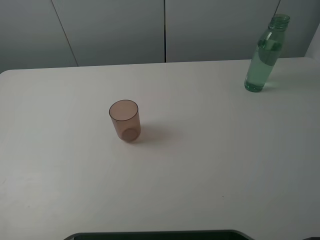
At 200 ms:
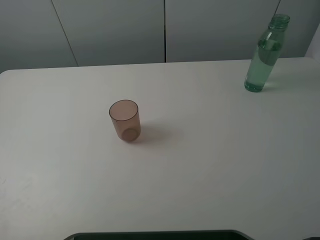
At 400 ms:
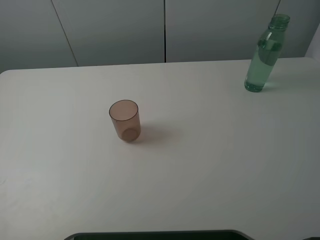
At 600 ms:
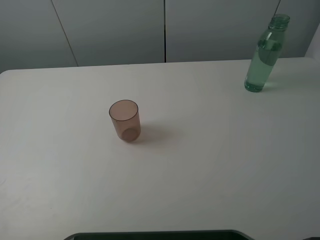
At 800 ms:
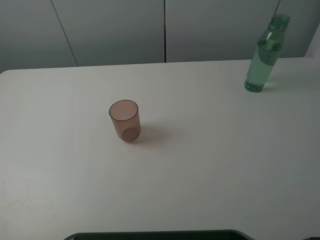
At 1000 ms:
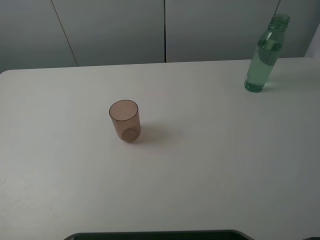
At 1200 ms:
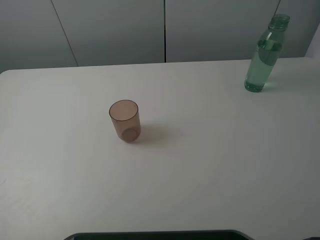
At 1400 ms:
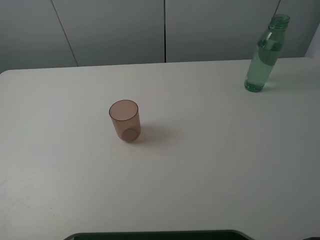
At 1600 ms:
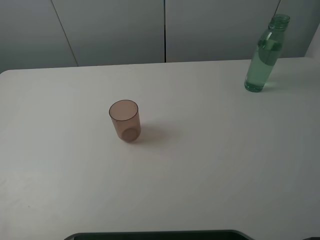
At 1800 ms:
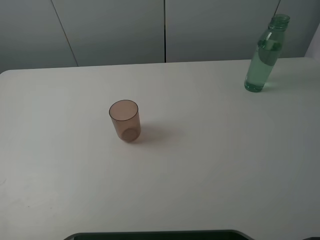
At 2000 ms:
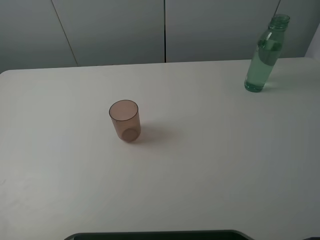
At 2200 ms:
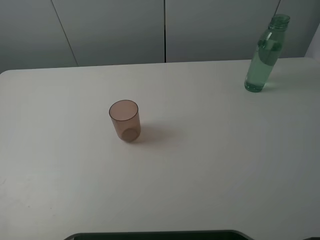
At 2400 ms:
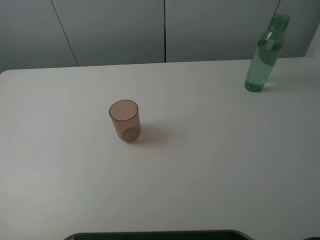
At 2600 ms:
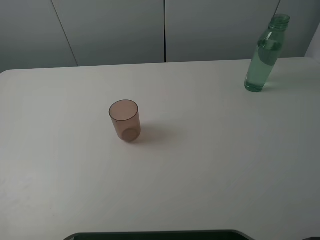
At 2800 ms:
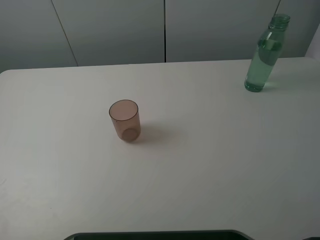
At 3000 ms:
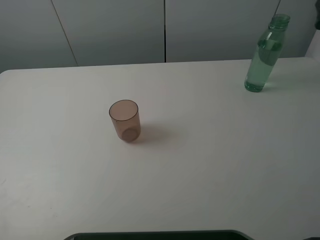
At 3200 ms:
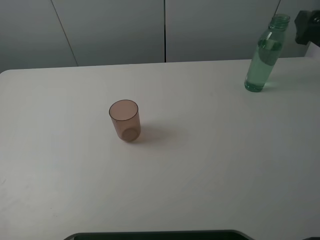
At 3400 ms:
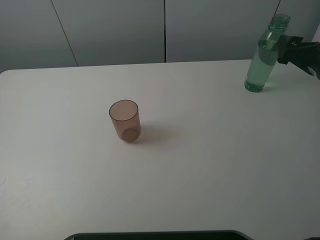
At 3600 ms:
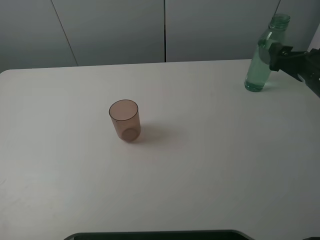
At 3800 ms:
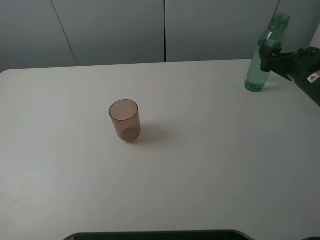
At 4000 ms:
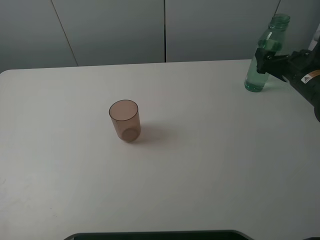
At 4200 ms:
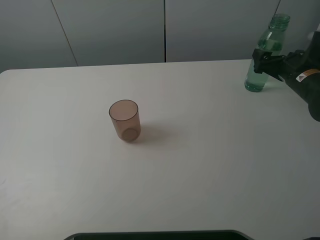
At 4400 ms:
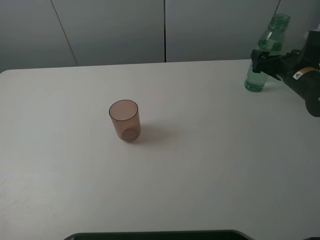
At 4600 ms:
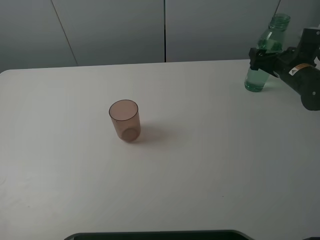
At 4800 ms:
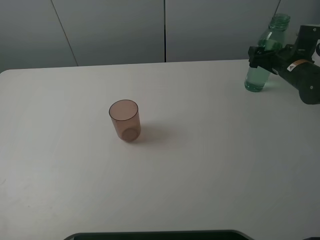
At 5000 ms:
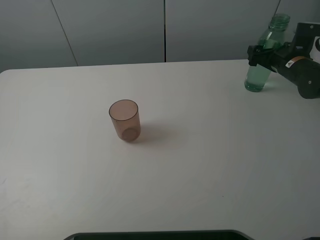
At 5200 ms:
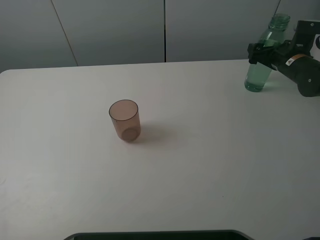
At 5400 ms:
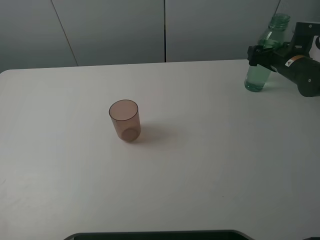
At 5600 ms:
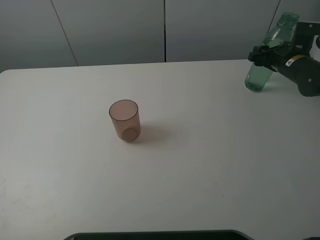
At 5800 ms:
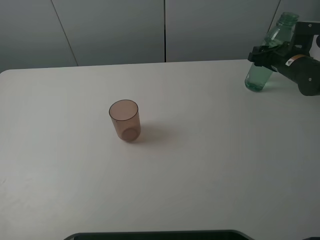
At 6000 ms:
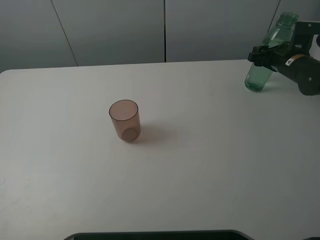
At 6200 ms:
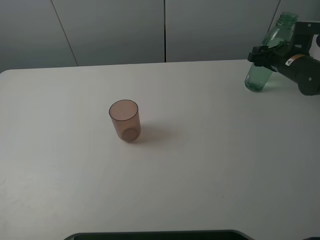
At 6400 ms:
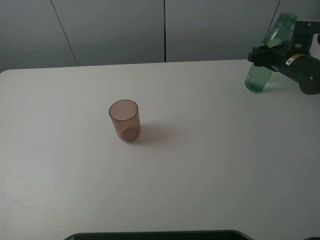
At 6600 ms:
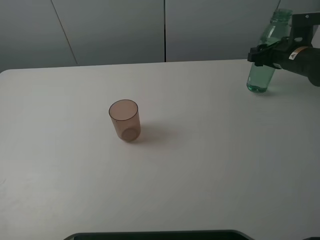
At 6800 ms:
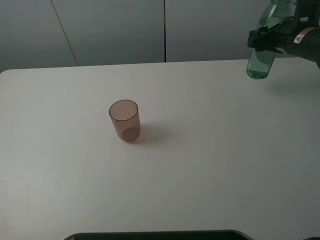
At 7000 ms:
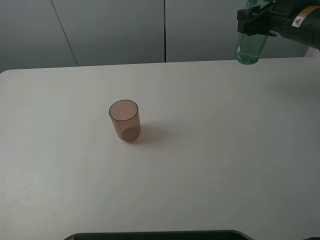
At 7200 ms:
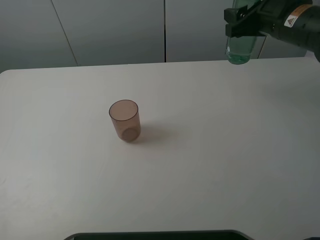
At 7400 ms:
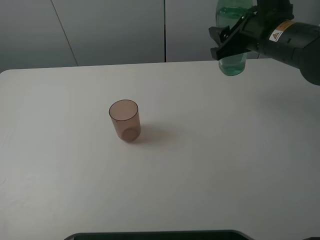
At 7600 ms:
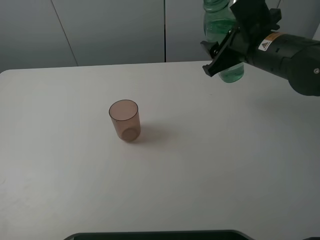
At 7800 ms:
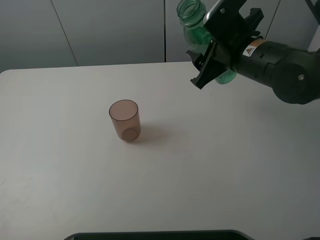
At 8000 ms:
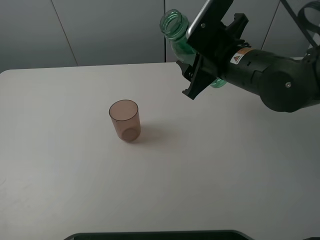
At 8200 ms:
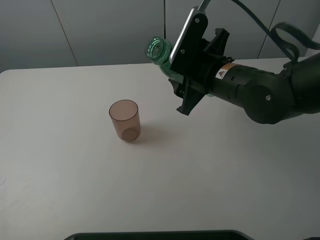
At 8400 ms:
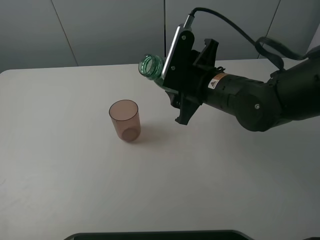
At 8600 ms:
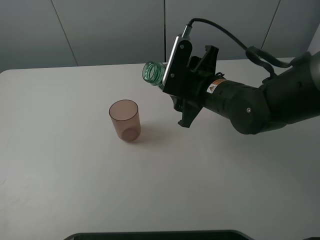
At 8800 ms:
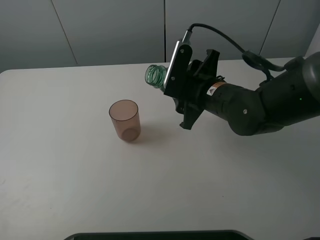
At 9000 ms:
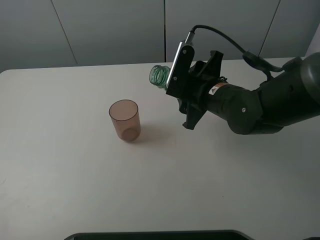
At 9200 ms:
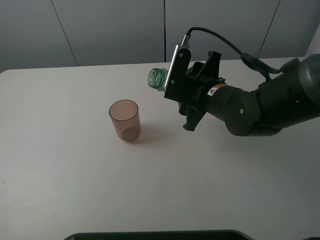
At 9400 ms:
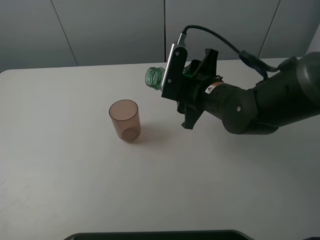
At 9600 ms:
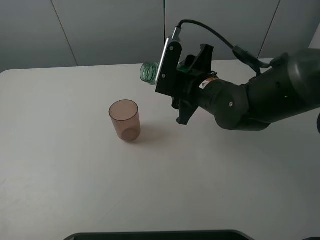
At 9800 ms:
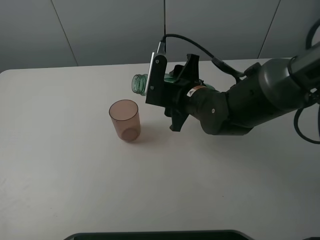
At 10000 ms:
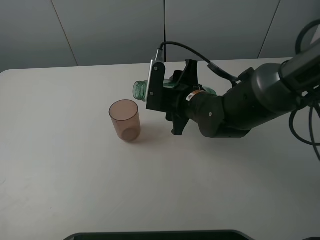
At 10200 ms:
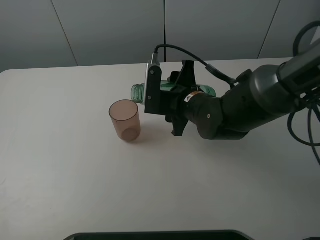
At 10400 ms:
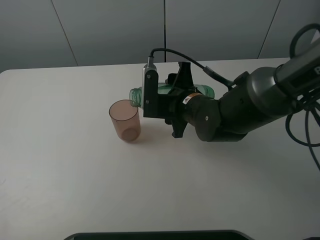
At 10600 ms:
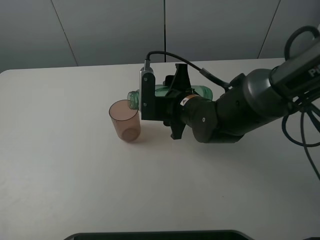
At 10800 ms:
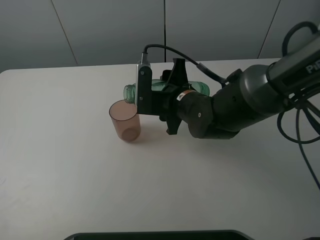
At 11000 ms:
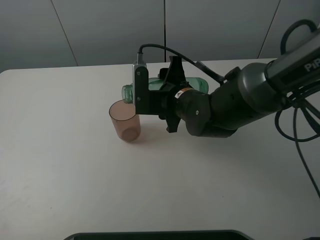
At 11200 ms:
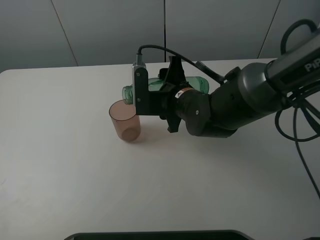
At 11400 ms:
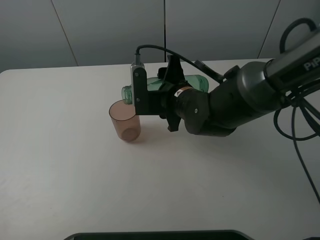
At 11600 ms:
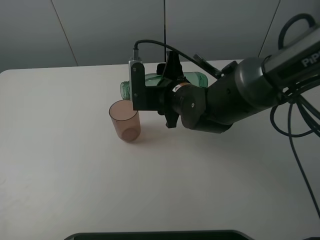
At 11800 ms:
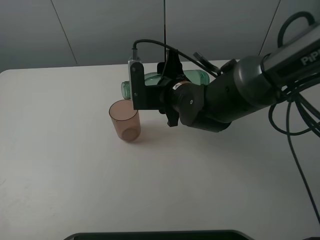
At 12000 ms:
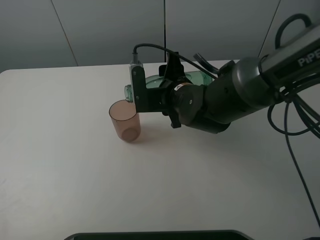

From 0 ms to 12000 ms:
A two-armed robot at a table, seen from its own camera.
Task of the whole recording: pick up the bottle filled with water and pour it into the pink cup.
Step, from 0 ms to 6000 ms: Grasp the green bottle with the right gripper.
From 0 ms to 1600 ms: Both grippers stay put.
From 3000 ms to 4400 ms: The right gripper moves downward and forward, some 15 cm.
From 4400 ms to 6000 ms: The right gripper closes.
From 6000 ms to 7600 ms: The right gripper moves to the left, backward and upward, about 20 cm.
From 7600 ms to 9000 ms: The right gripper goes roughly 10 cm downward and to the left.
From 9000 ms to 10400 ms: There are only small adjustments of the grippers.
From 10400 ms to 12000 ms: There are only small adjustments of the grippers.

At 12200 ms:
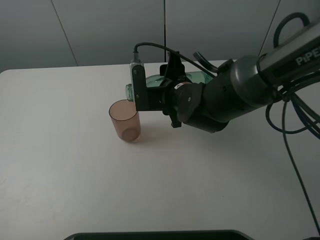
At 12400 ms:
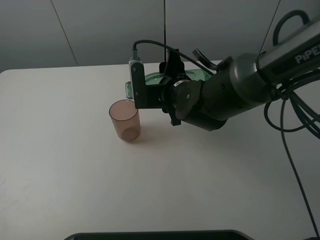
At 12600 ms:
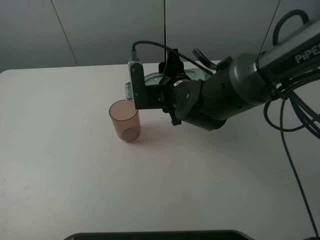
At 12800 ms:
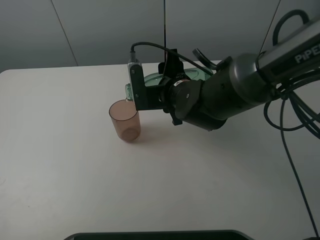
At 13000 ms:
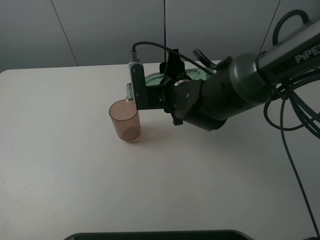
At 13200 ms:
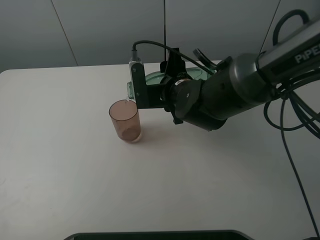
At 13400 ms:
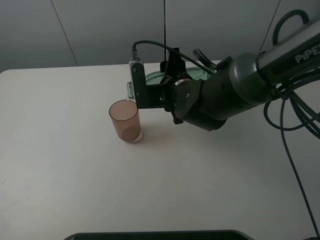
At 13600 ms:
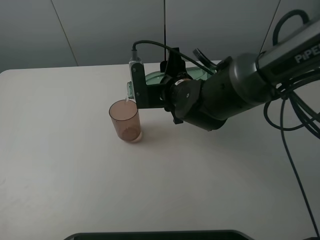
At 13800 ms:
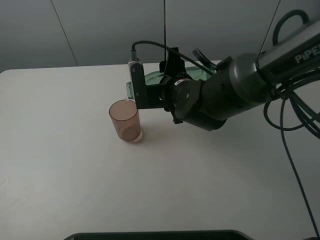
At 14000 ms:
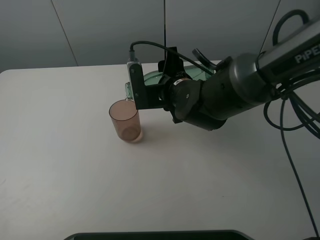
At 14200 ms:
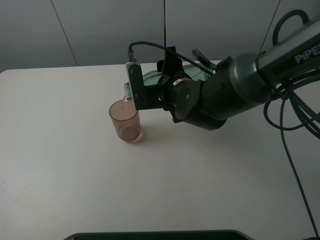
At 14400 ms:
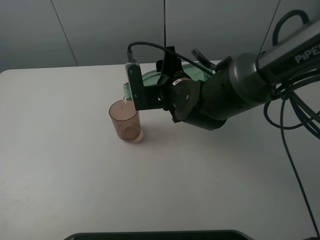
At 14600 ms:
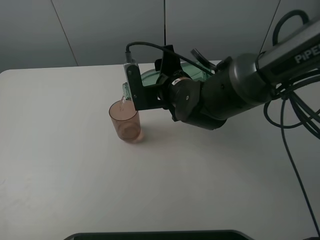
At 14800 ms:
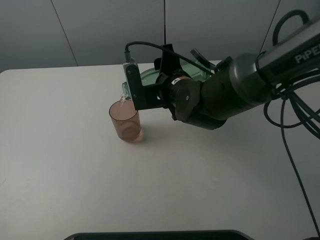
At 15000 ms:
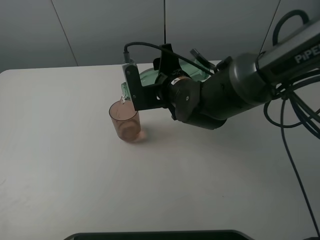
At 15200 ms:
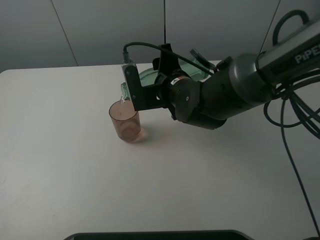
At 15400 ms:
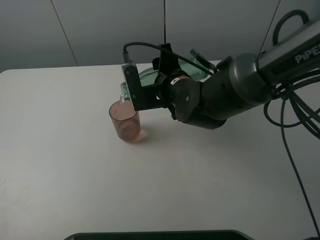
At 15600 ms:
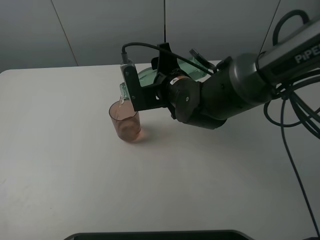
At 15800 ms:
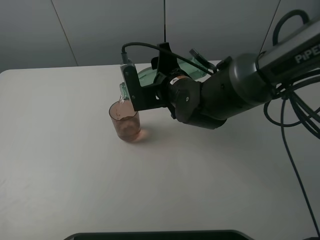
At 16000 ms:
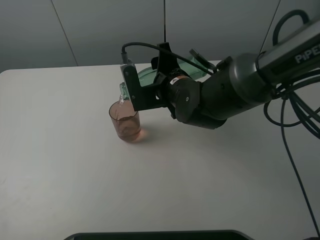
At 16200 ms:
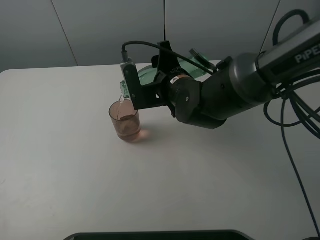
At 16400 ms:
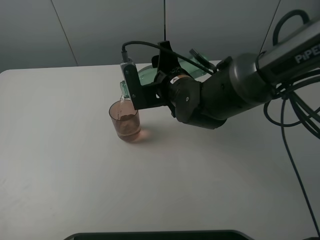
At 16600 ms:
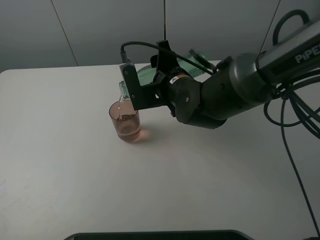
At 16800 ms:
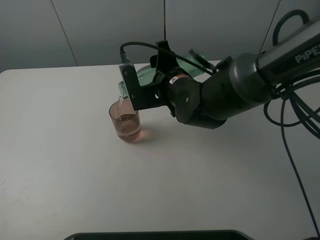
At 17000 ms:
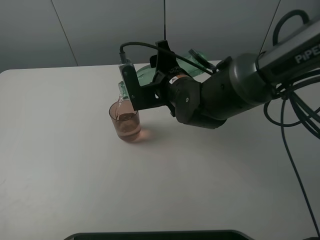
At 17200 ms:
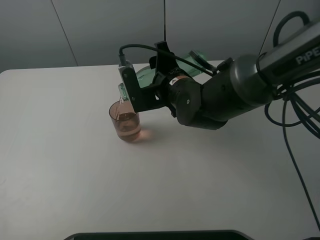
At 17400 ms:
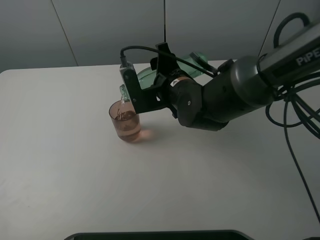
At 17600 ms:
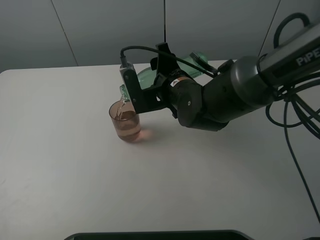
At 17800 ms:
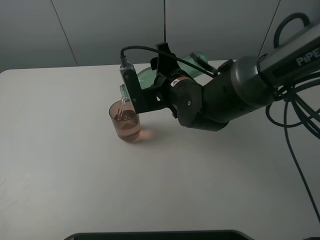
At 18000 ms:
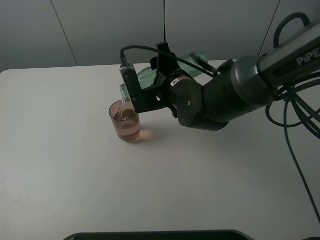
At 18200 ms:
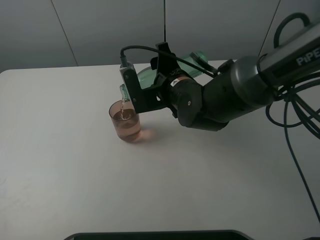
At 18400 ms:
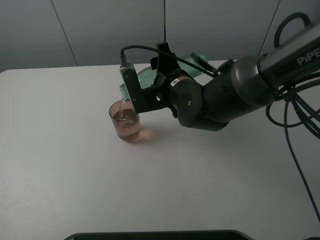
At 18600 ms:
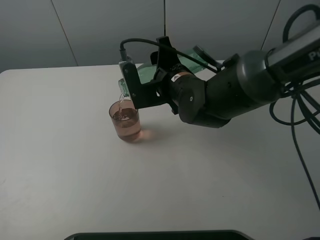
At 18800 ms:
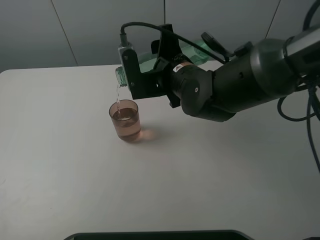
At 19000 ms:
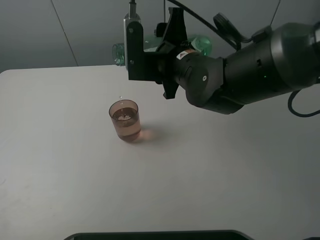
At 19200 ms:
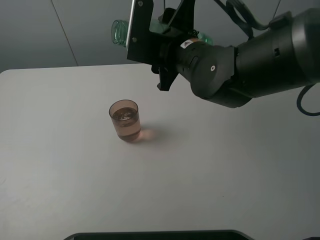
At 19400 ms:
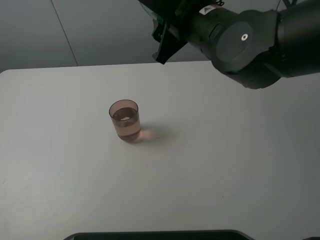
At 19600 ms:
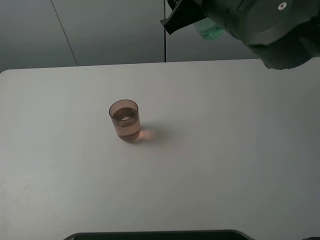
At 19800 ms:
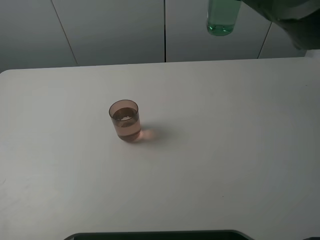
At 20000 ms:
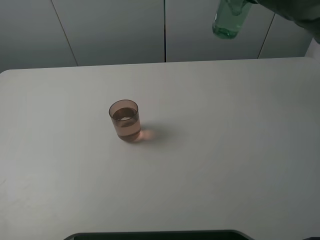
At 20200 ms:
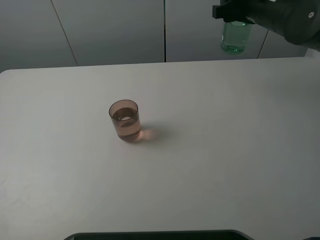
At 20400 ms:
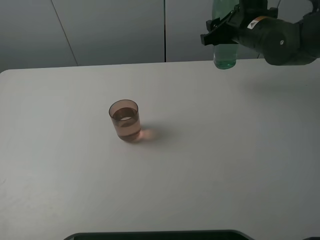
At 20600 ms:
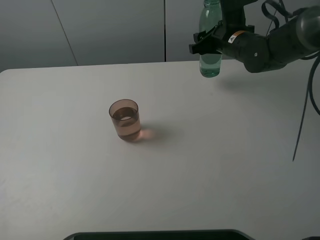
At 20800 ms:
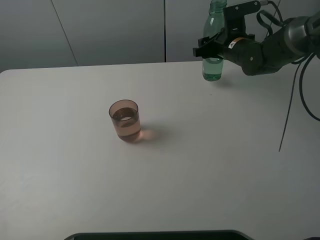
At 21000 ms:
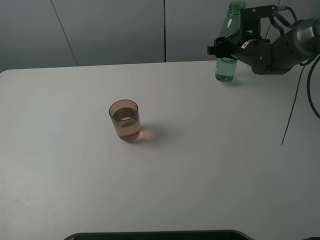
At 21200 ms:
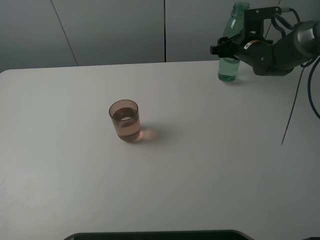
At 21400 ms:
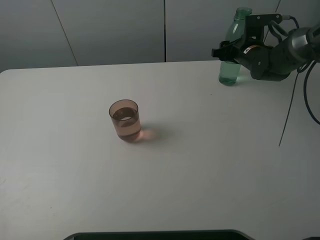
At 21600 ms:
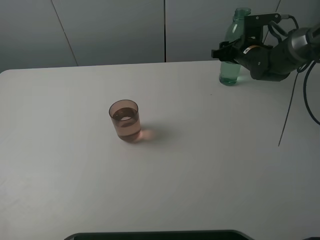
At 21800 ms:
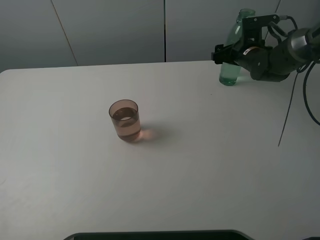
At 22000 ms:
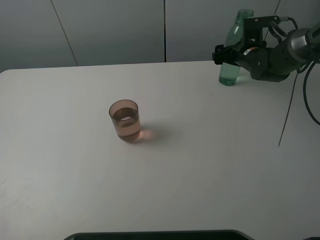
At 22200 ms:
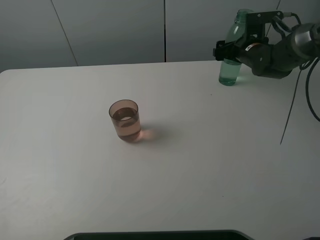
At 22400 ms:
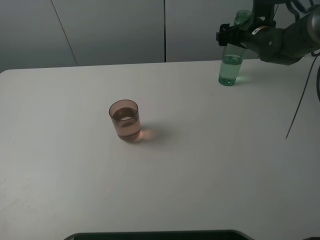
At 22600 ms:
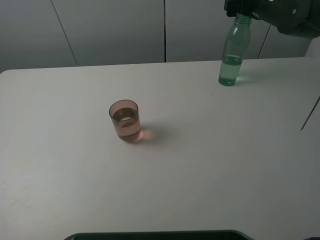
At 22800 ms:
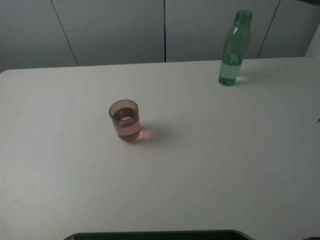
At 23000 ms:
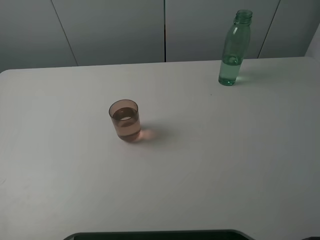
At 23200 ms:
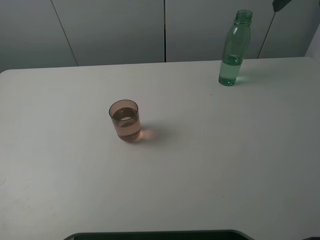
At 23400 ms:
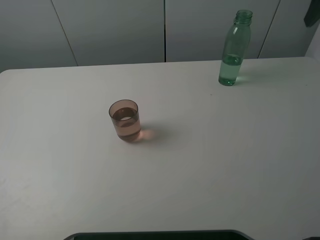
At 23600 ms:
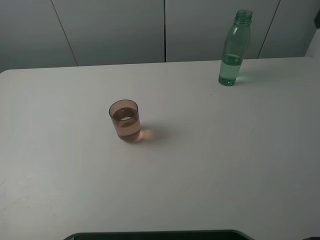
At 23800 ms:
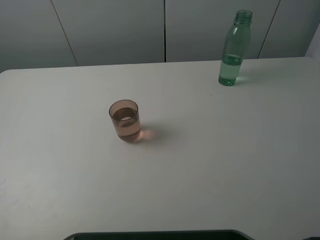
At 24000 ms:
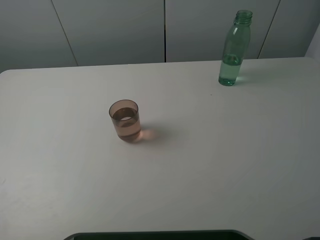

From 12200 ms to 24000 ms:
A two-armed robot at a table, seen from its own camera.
Task of the whole recording: pick up the bottle filled with water and pour it into the pink cup.
Step, from 12200 ms to 19200 ms: Pour water from green bottle to pink cup with the right gripper.
Step, from 19400 ms to 22400 ms: Place the green bottle with the right gripper.
From 12200 ms to 13600 ms: Both grippers stay about where they are.
From 13600 ms to 15200 ms: The grippers make only small movements.
From 15200 ms to 18200 ms: Neither gripper changes place.
From 18200 ms to 19600 ms: The right gripper heads upward, covering some 15 cm.
From 19600 ms to 21000 ms: The right gripper shifts some 25 cm downward, forward and to the right.
From 21000 ms to 22600 ms: The right gripper moves upward, about 10 cm, and opens its fingers.
From 22600 ms to 24000 ms: The right gripper travels backward and upward by some 25 cm.
